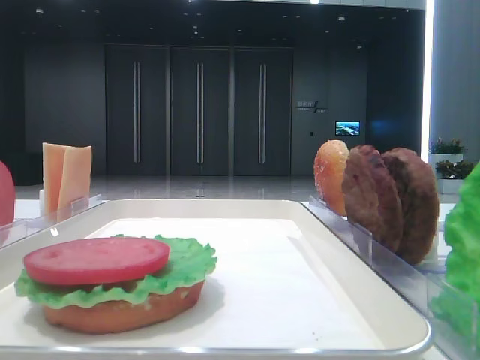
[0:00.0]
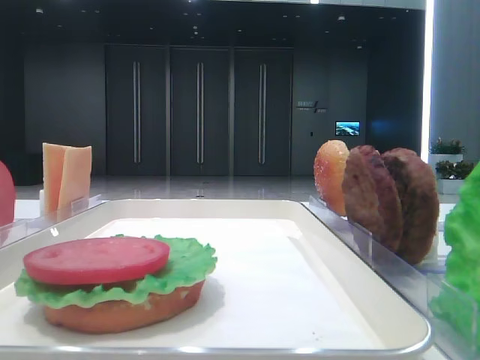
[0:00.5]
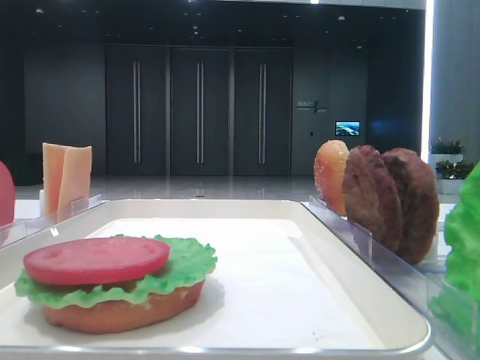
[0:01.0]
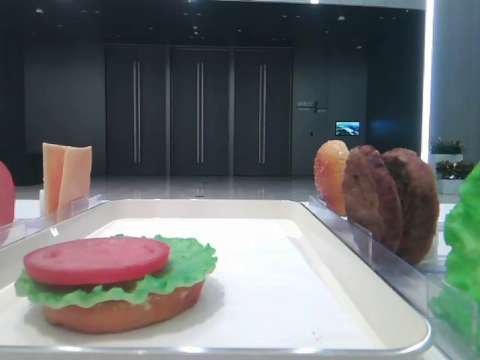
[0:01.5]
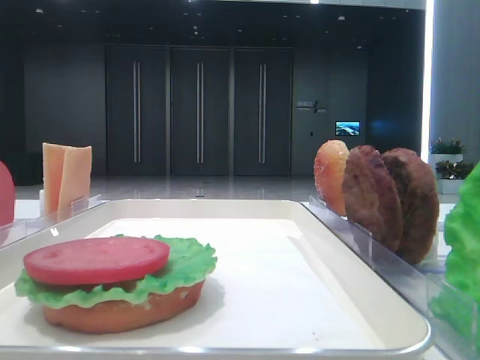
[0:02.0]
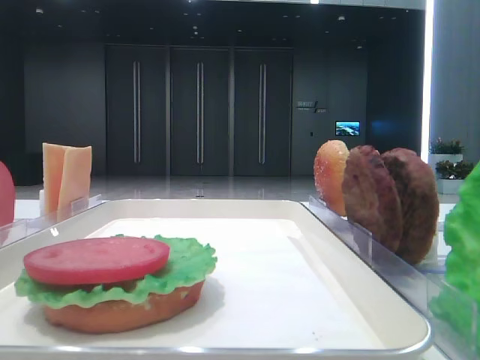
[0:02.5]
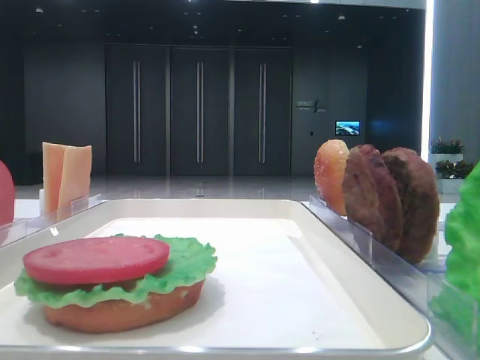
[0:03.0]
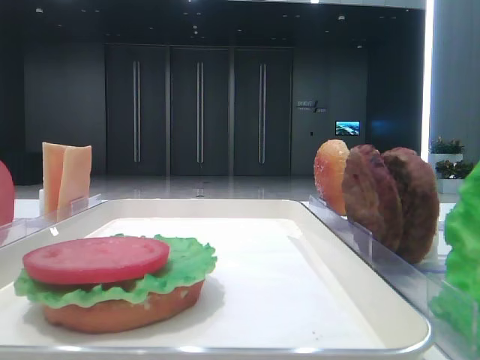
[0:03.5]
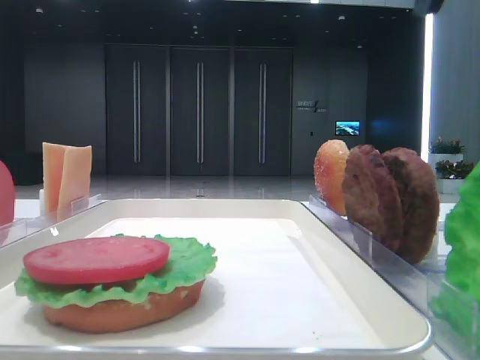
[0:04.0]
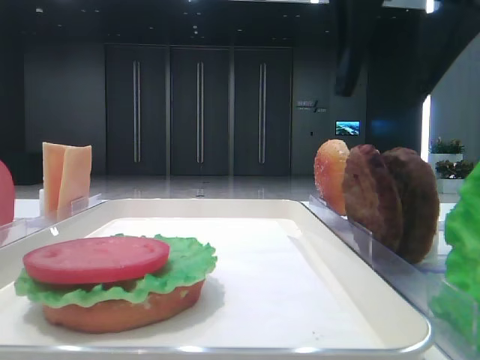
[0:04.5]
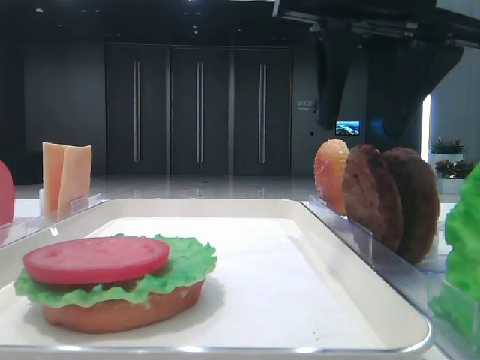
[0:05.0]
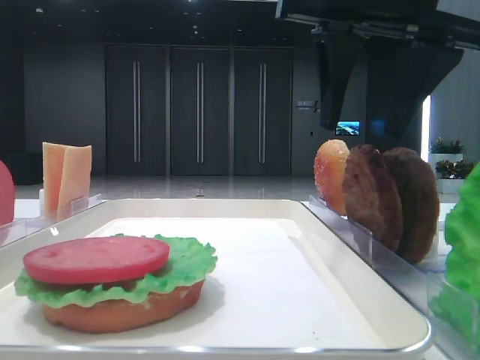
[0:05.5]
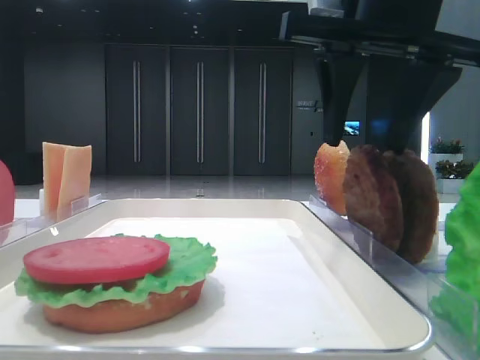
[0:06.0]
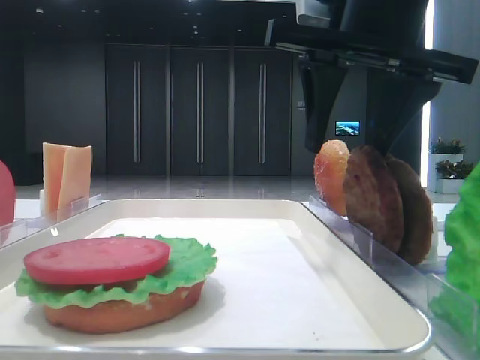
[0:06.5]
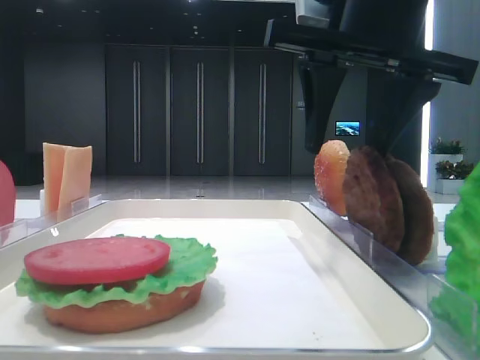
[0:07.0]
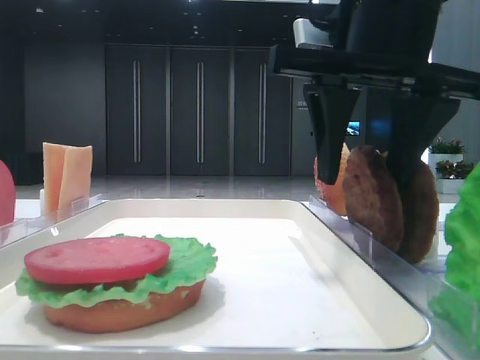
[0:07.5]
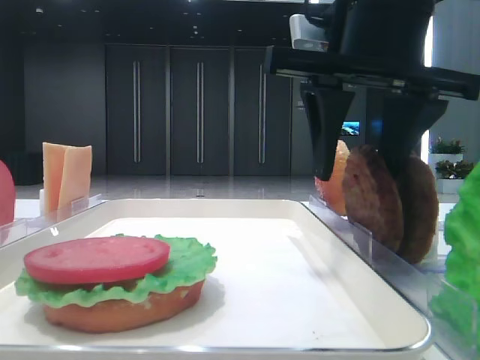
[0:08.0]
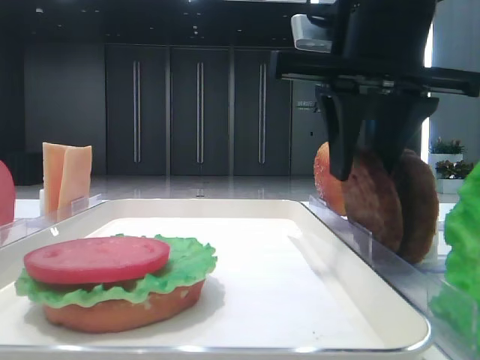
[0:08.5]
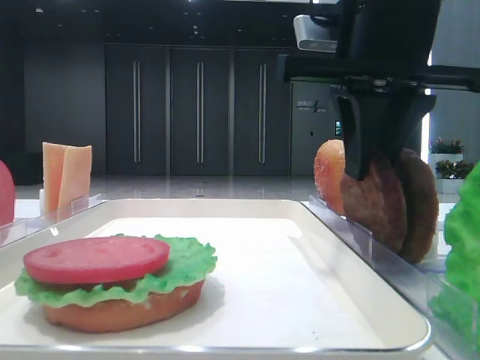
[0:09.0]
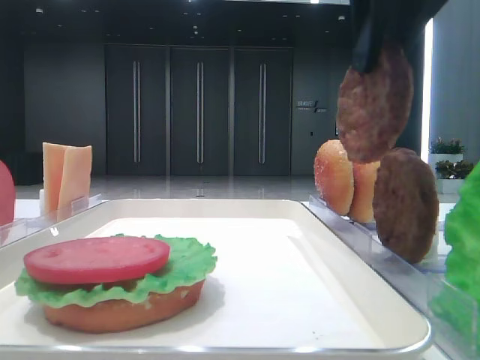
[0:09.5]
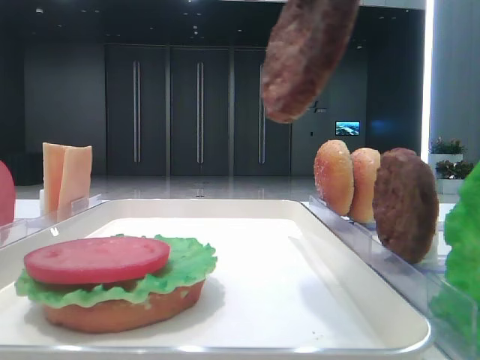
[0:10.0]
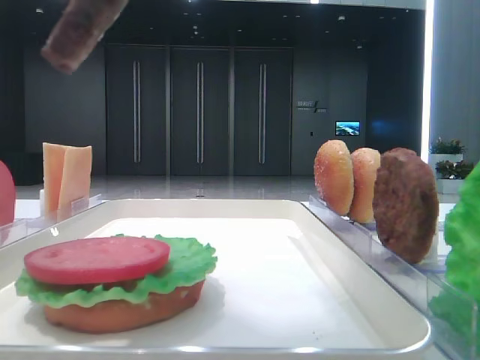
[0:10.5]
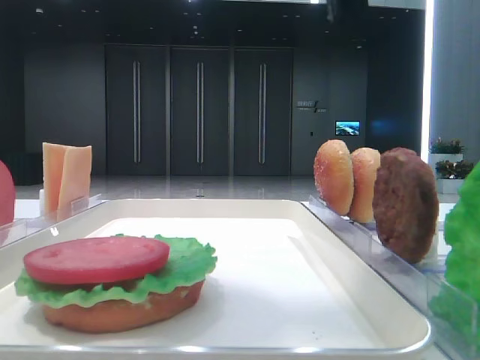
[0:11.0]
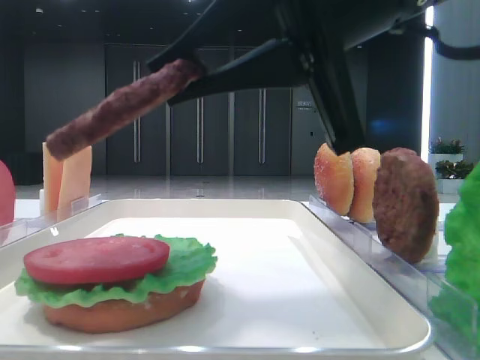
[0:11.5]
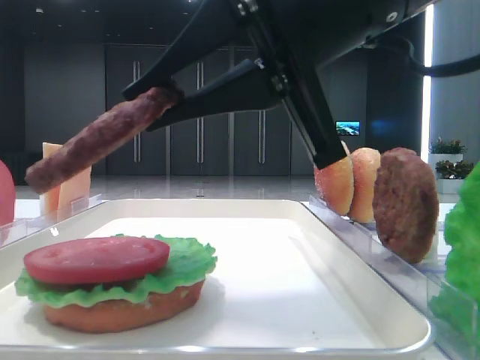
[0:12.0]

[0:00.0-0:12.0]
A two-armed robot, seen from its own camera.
Step, 0:00.0 to 0:08.5: Grab the patty with the right hand.
0:04.0 to 0:06.0: The right gripper shifts roughly 10 cm downward and forward.
0:06.0 to 0:08.0: The grippers make only small movements.
0:08.0 to 0:10.0: The right gripper heads upward and backward, covering approximately 15 cm, and closes its fingers.
0:10.0 to 0:12.0: The right gripper travels downward by roughly 10 cm.

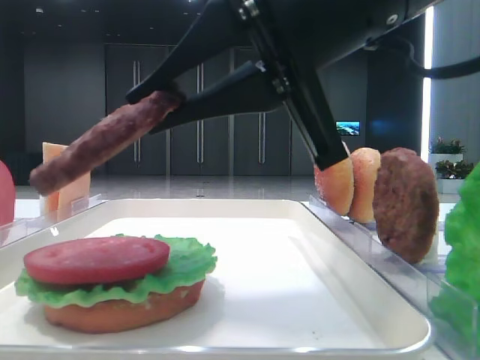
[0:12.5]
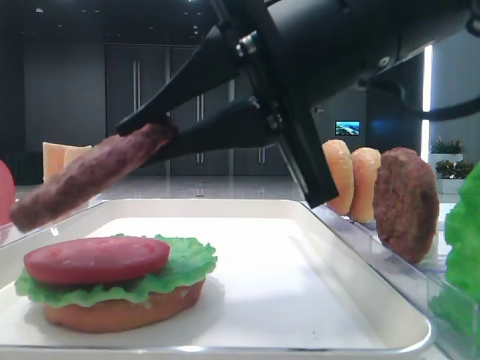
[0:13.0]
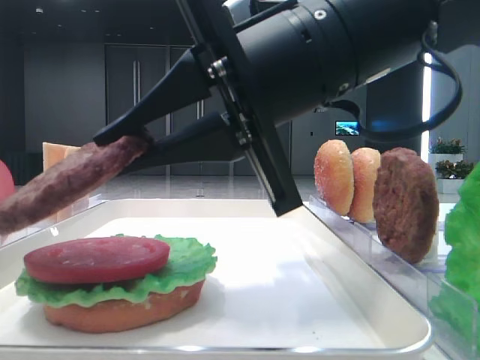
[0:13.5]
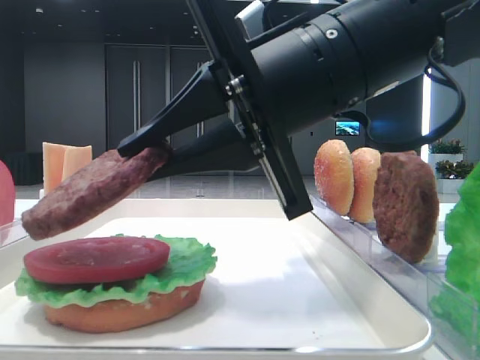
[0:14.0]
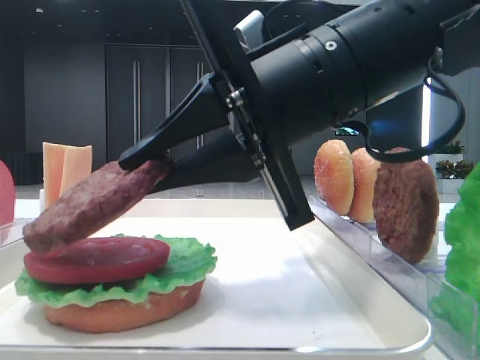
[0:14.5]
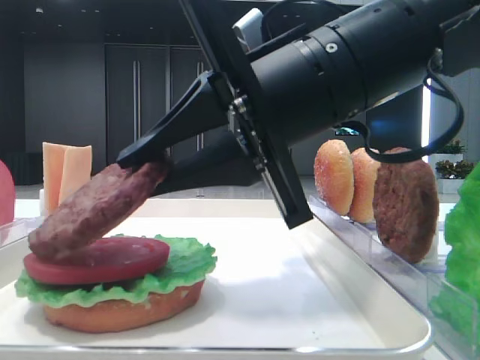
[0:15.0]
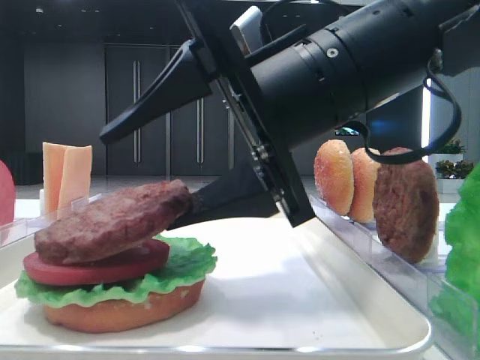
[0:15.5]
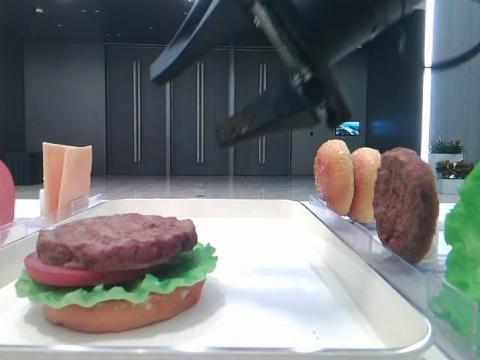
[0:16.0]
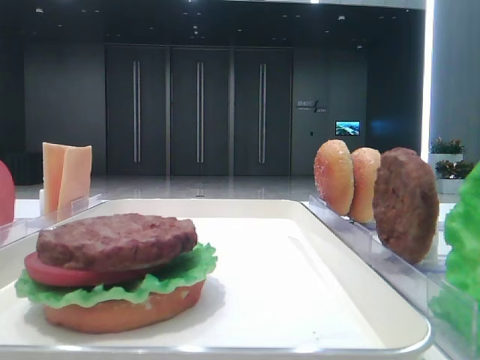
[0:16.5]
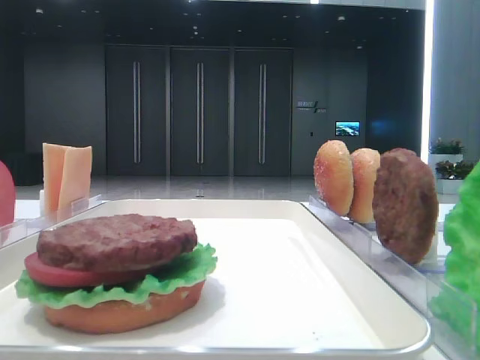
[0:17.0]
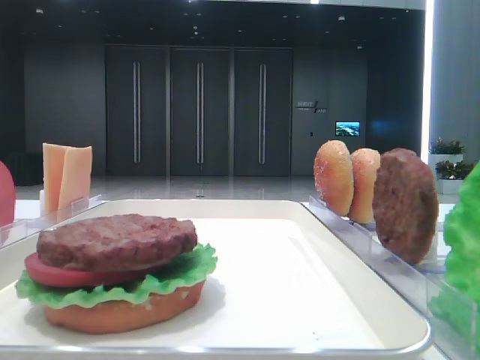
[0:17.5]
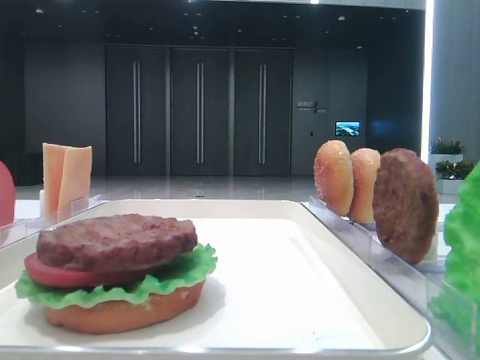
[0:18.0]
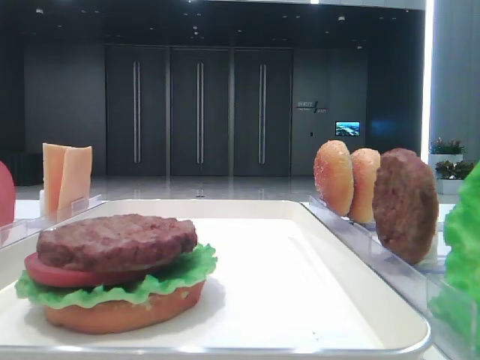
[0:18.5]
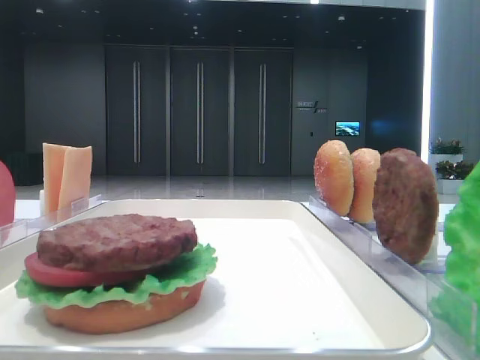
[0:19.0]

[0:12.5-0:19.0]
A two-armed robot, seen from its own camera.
Step, 0:12.5 to 0:15.5: Place the patty on the tomato slice with the right hand.
0:12.5 to 0:14.5: The right gripper ends up some 5 cm from where it was.
0:14.5 to 0:17.0: The right gripper shifts some 35 cm to the right, upward and backward, and opens.

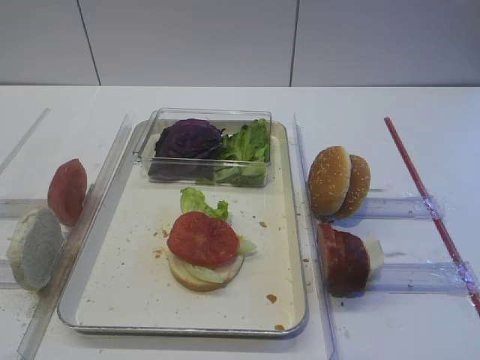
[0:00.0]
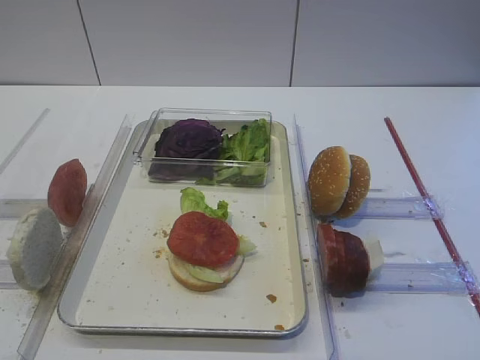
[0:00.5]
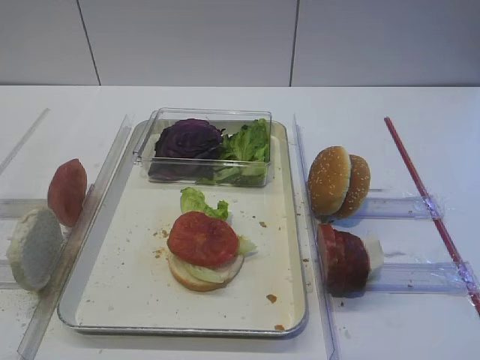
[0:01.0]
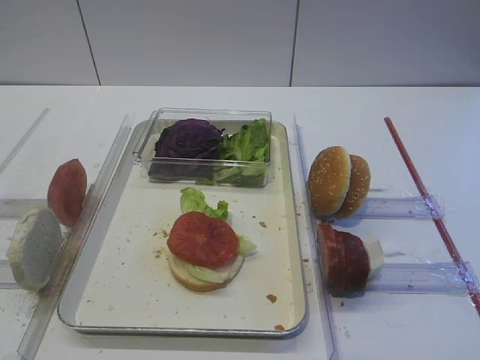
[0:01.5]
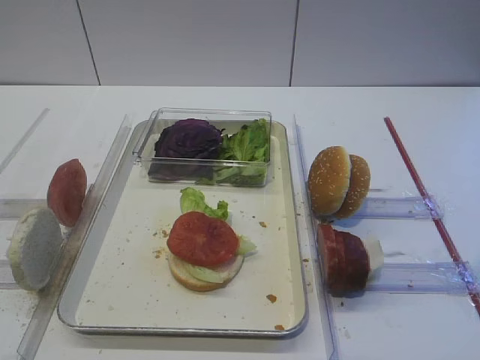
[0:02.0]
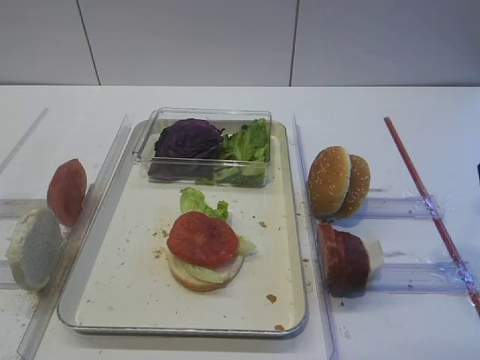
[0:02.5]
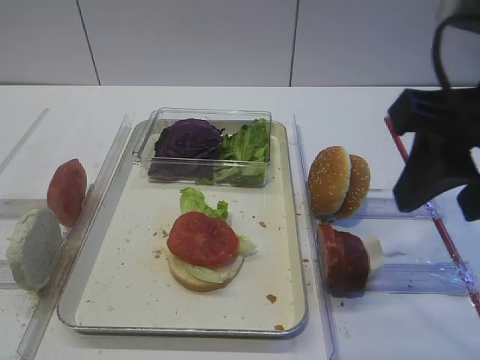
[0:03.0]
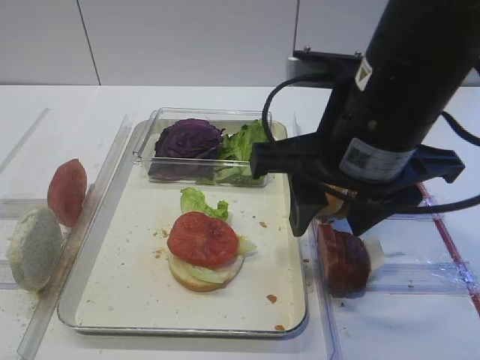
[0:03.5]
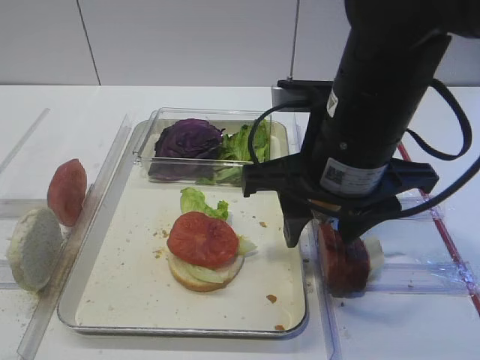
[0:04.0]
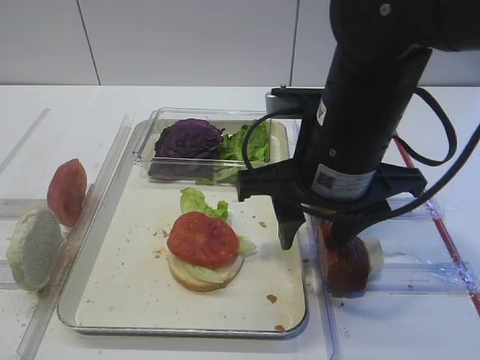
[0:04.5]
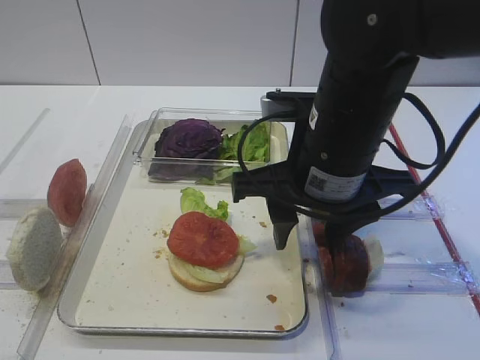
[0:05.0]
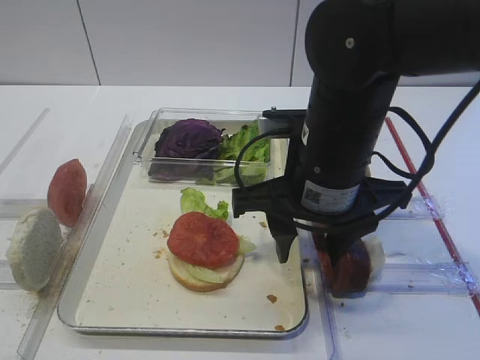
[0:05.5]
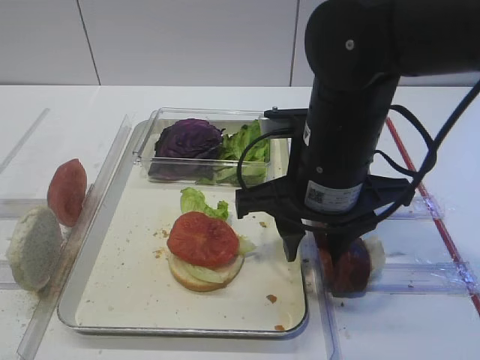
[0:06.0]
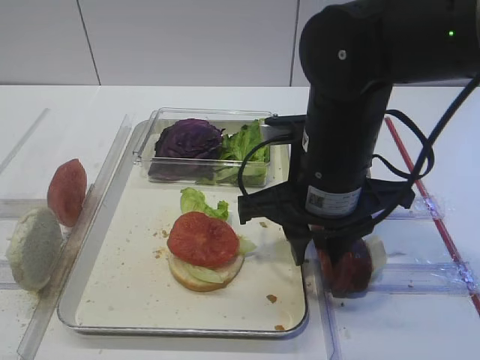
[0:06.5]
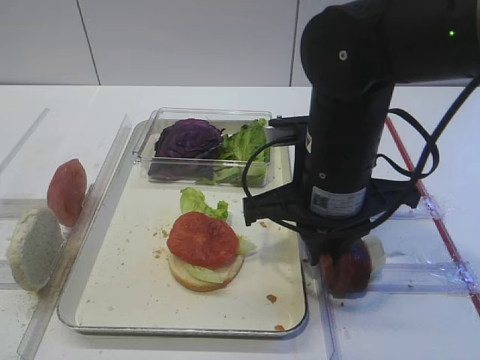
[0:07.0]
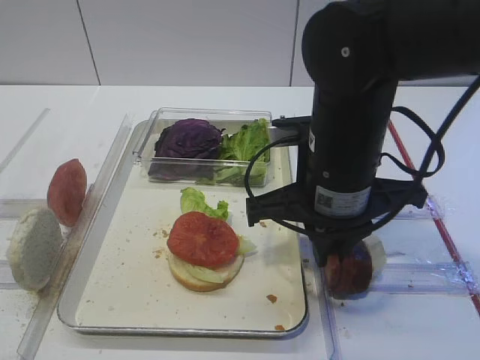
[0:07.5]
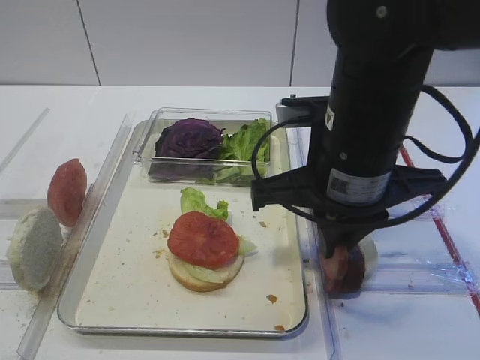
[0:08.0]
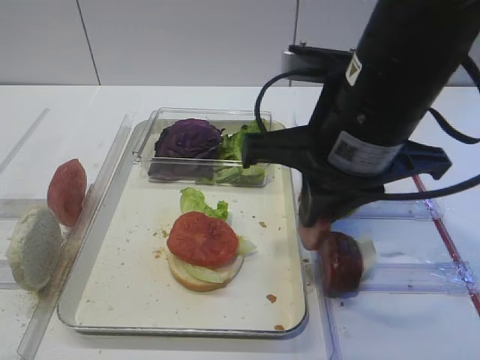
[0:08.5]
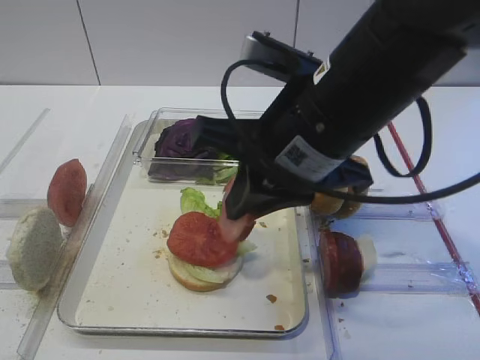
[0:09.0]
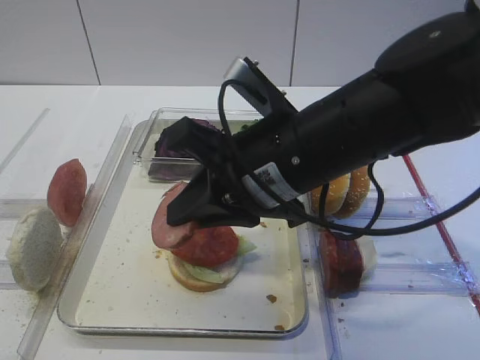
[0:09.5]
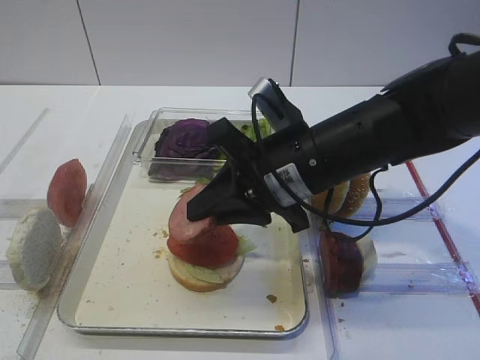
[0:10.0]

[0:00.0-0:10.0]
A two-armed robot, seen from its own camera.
Step, 0:00.0 to 0:08.0: Pick up the cutlet with the right gripper.
0:02.0 to 0:04.0: The right gripper shifts about 20 cm to the left, forward and downward.
0:04.0 to 0:06.0: The grippers move only a little.
0:06.0 to 0:08.0: The right gripper closes.
0:08.0 to 0:10.0: The right gripper moves some 5 cm.
